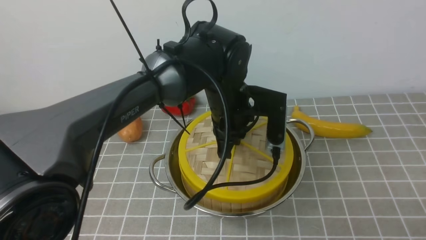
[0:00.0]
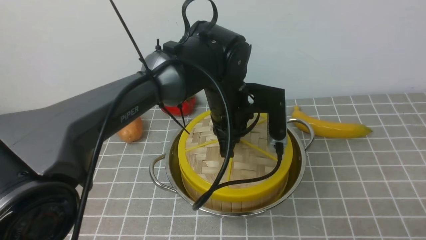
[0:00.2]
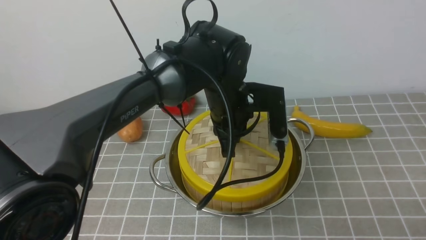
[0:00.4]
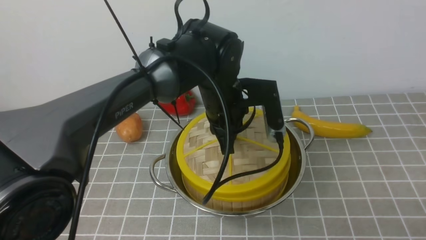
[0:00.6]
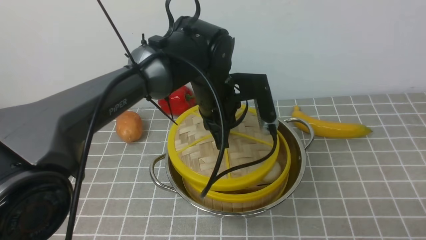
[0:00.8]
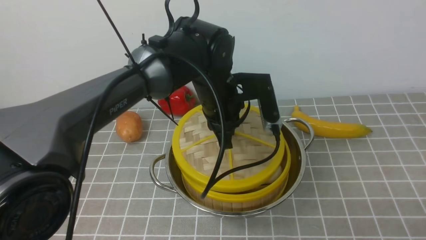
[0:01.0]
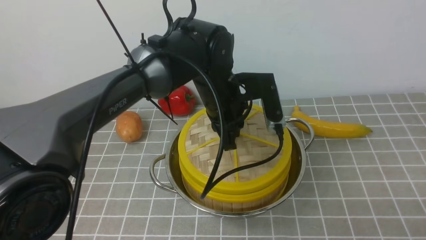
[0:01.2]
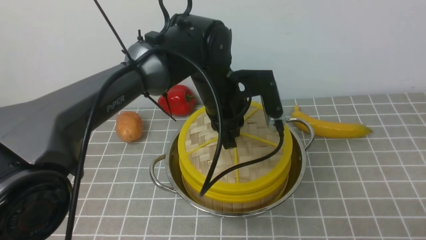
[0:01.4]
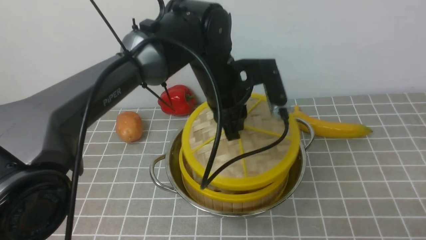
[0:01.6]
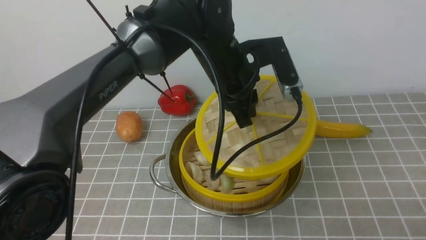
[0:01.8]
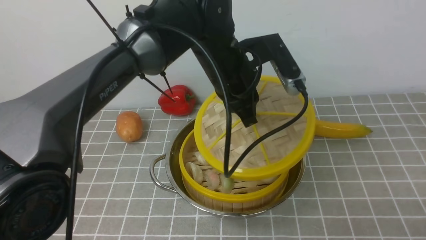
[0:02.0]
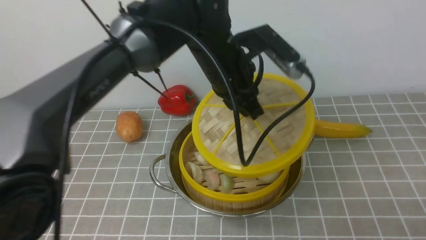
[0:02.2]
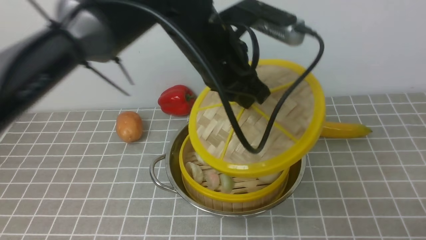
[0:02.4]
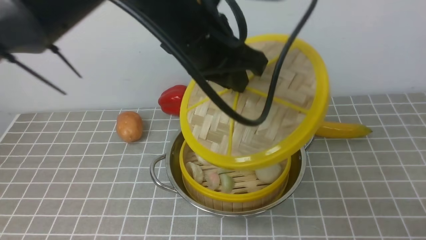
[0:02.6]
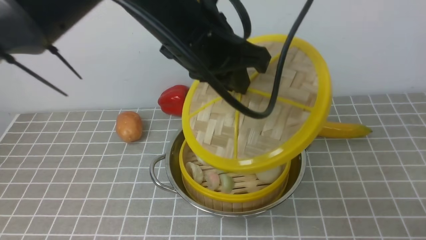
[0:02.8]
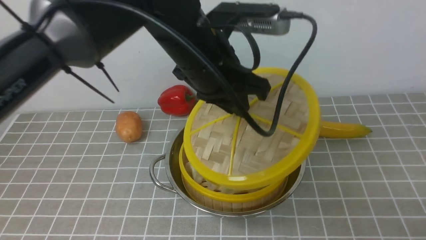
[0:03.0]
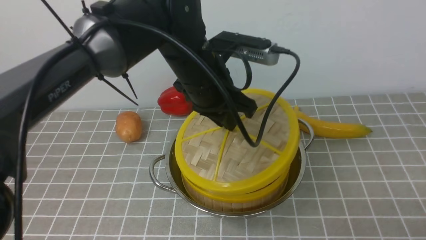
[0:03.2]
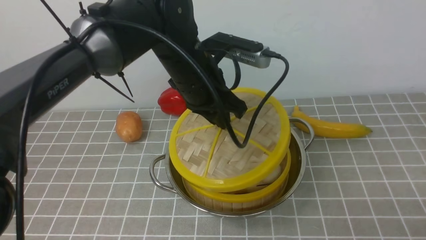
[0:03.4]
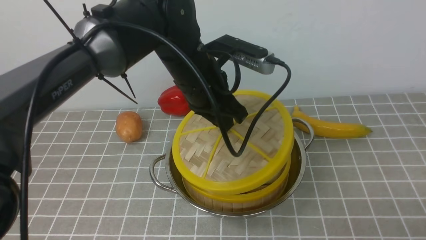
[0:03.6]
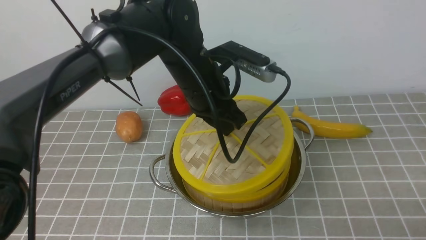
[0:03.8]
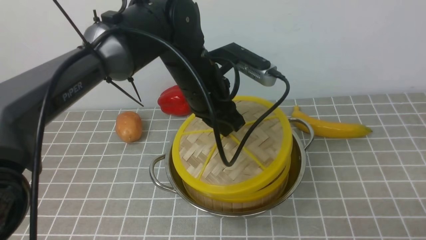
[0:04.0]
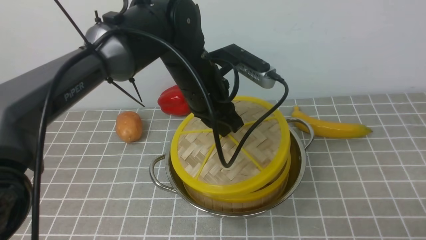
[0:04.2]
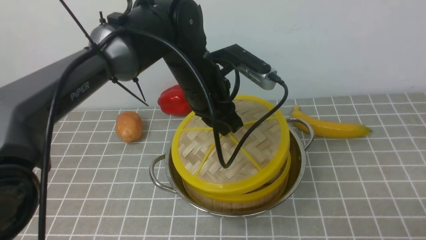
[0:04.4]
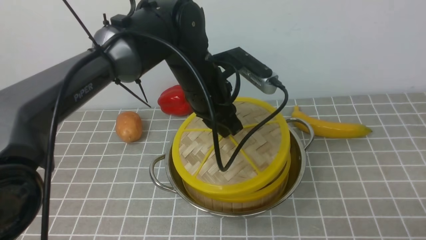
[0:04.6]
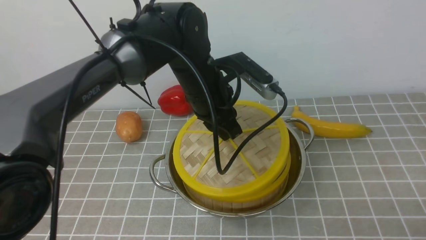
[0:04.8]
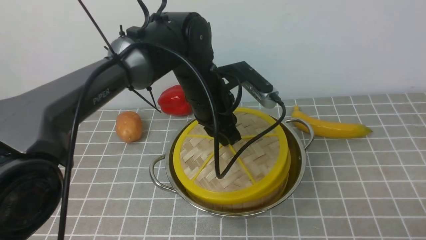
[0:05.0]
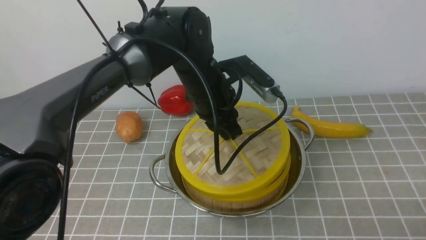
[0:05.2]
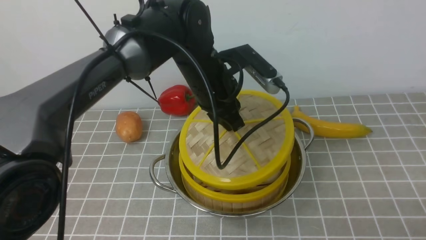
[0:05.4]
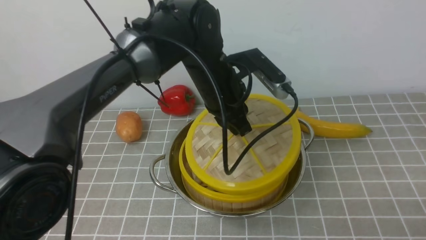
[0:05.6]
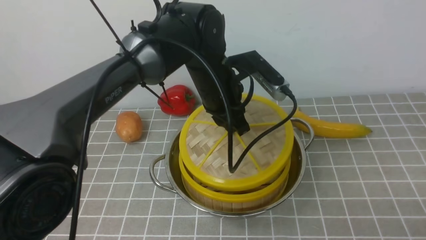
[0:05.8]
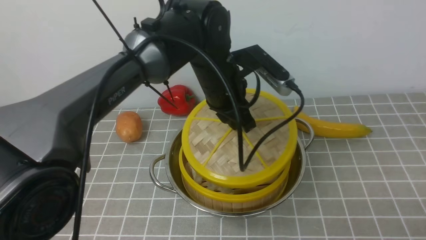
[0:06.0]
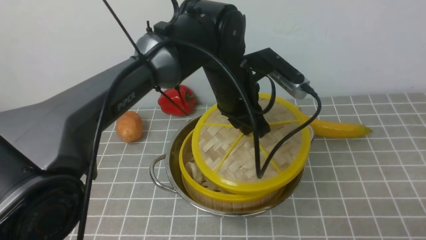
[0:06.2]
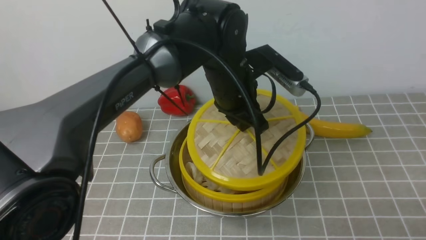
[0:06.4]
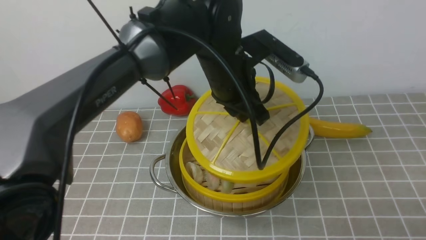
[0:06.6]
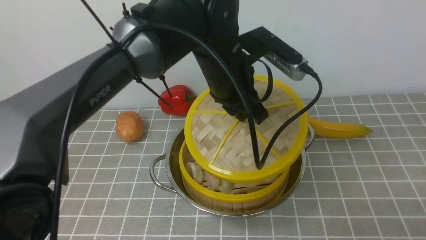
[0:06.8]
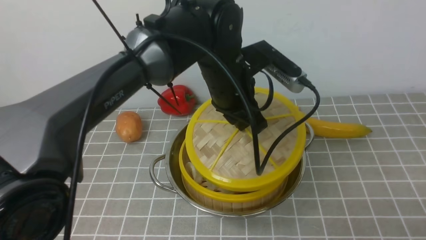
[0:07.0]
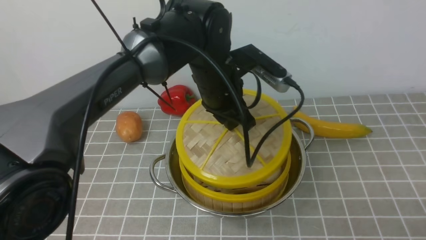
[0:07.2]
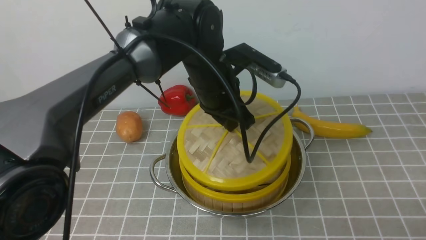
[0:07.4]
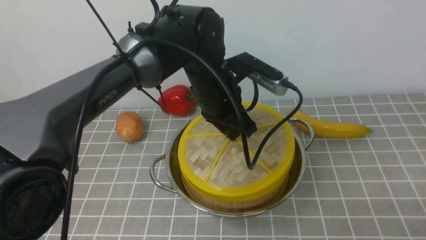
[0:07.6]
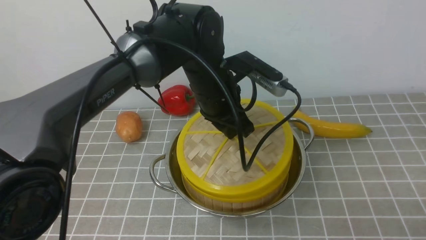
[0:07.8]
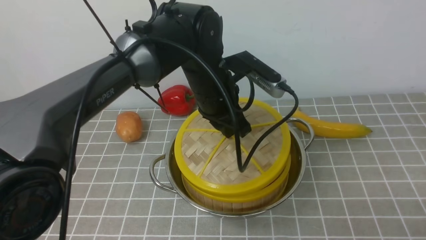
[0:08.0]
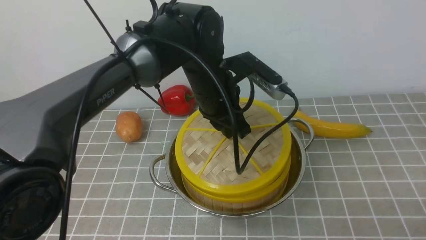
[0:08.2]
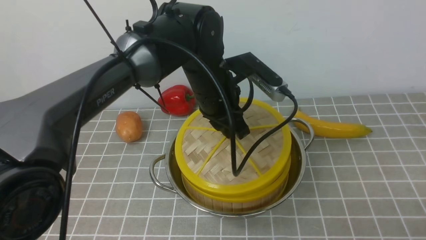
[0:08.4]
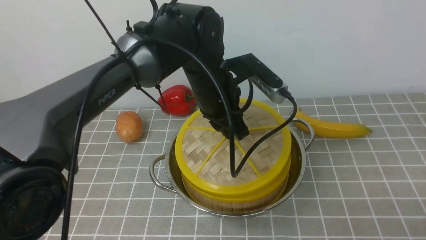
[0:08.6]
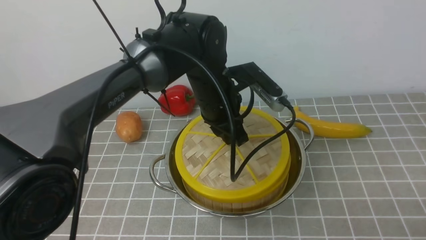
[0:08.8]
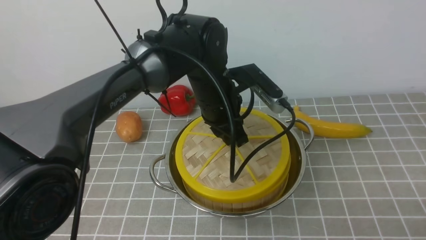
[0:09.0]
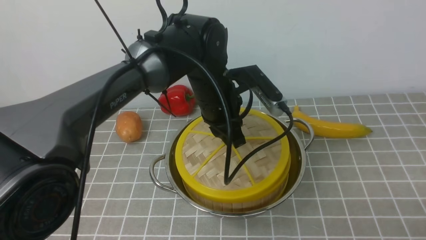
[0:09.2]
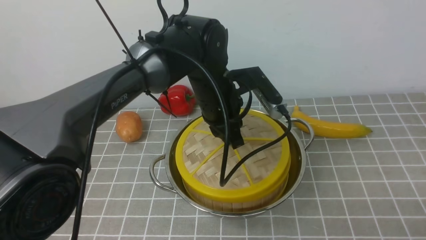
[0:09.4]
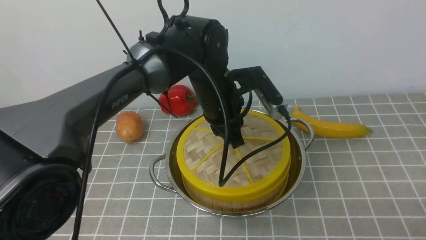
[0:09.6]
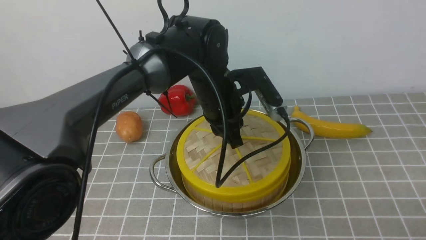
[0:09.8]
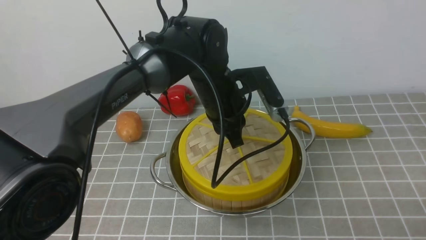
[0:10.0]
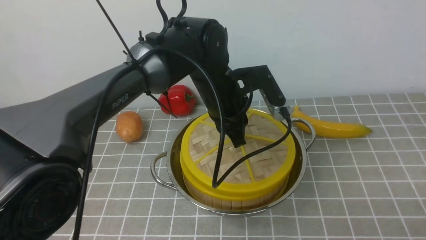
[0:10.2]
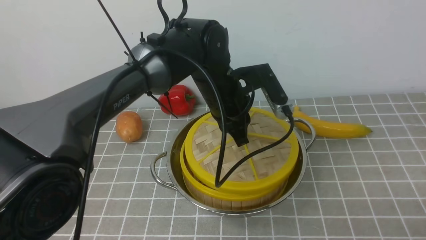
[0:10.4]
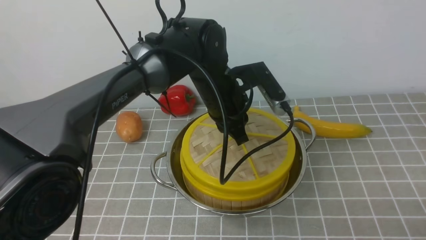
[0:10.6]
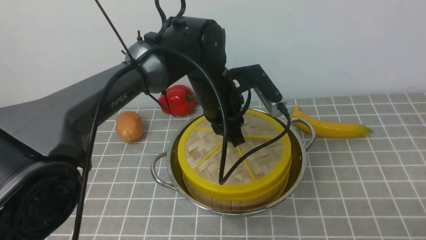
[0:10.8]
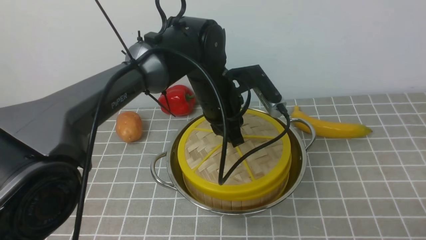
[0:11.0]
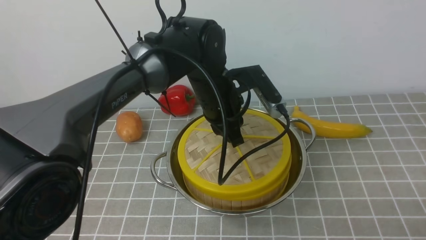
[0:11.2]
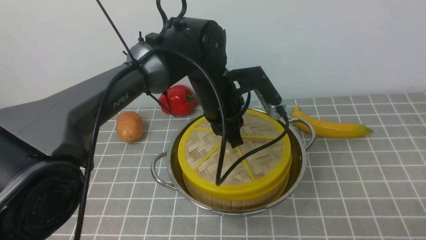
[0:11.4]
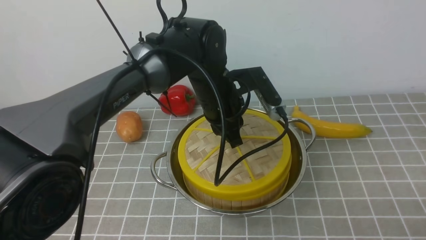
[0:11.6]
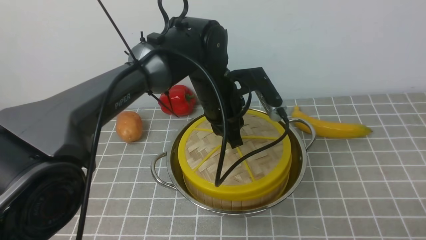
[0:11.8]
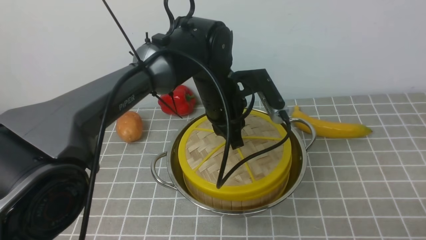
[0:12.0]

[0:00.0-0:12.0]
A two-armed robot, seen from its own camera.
Task of the whole recording: place the steamer in the pot on the grey tablecloth, and put the lid on the steamer.
0:01.6 to 0:03.0: The left gripper heads upward, covering about 5 cm.
0:03.0 to 0:04.4: The left gripper moves downward, about 5 cm.
0:06.0 to 0:12.0: The grippers move only a little.

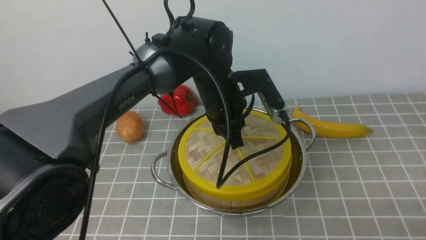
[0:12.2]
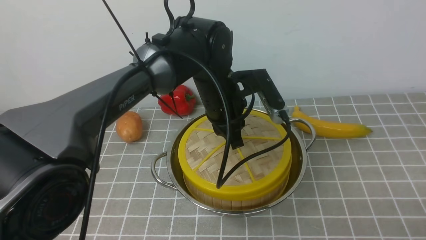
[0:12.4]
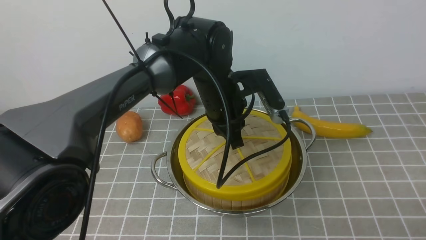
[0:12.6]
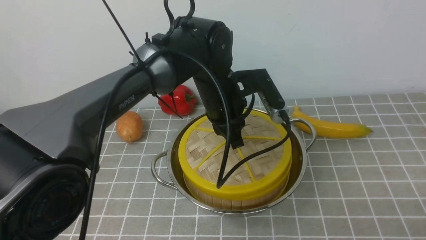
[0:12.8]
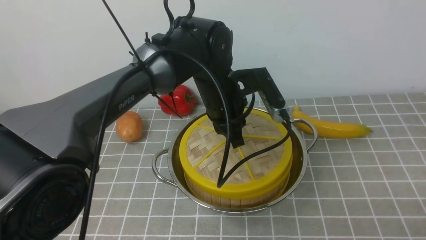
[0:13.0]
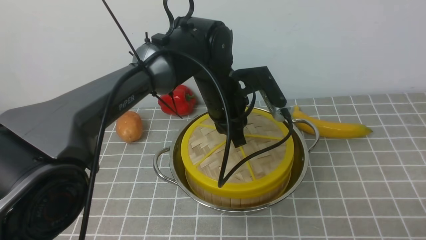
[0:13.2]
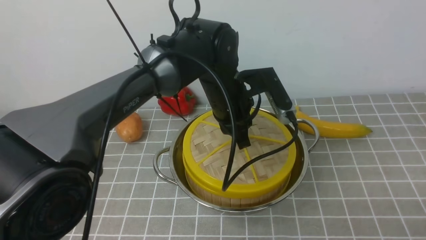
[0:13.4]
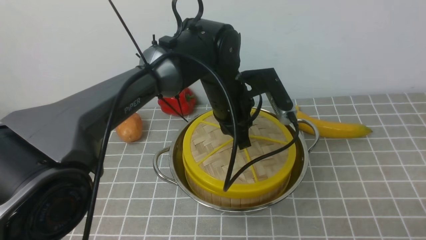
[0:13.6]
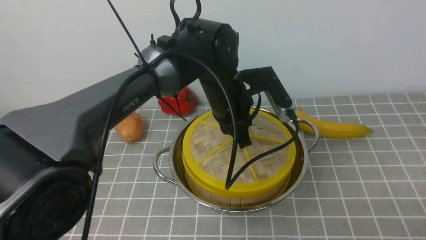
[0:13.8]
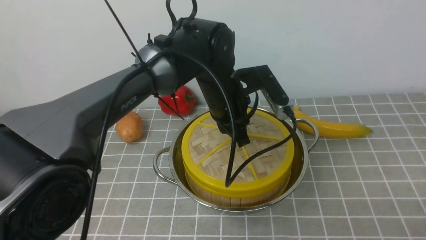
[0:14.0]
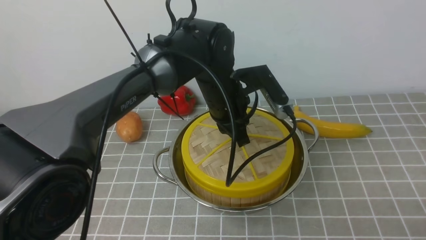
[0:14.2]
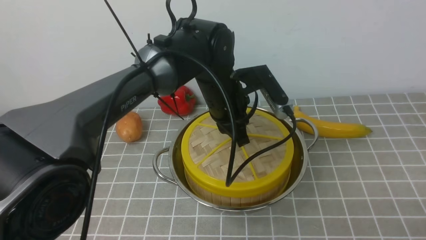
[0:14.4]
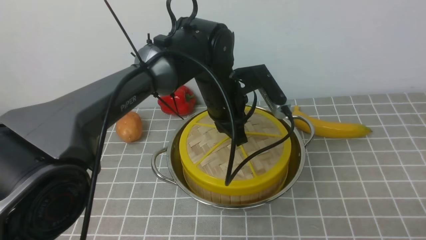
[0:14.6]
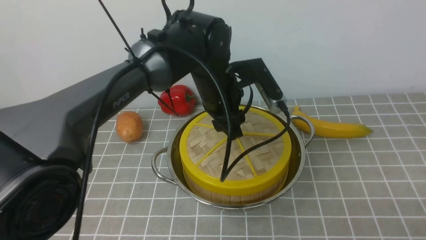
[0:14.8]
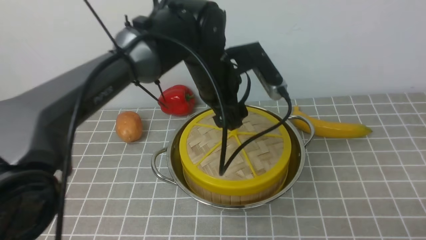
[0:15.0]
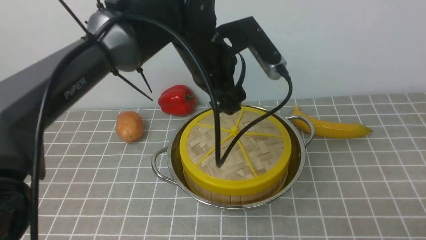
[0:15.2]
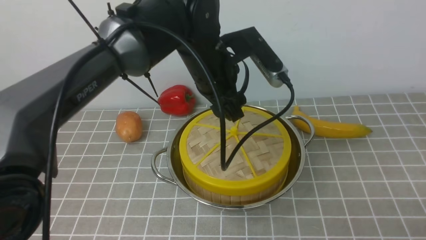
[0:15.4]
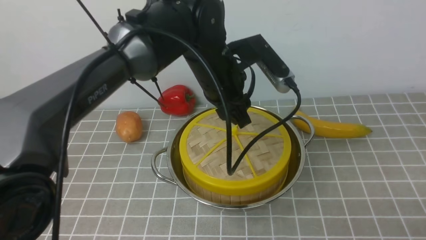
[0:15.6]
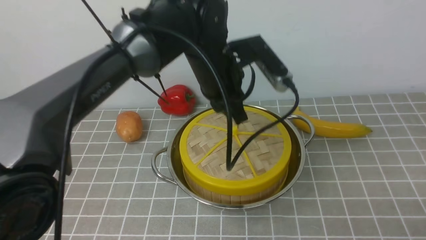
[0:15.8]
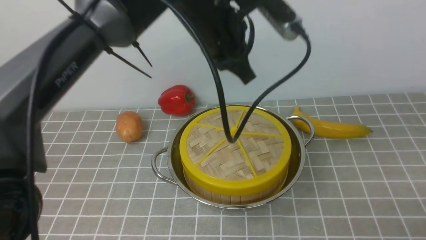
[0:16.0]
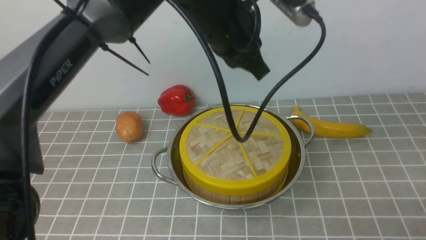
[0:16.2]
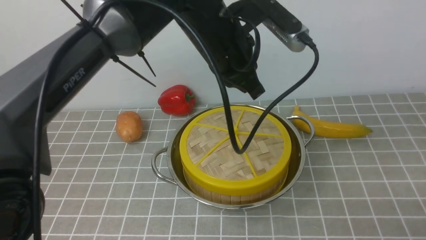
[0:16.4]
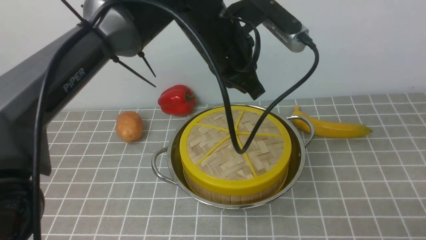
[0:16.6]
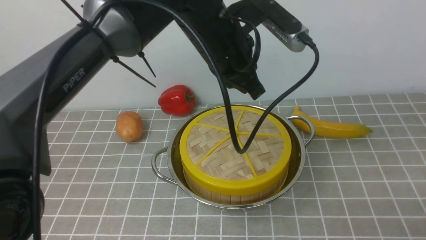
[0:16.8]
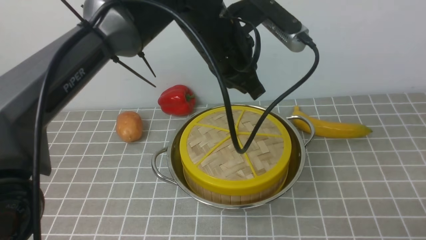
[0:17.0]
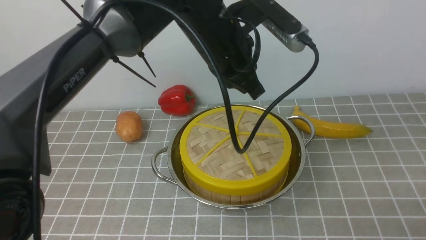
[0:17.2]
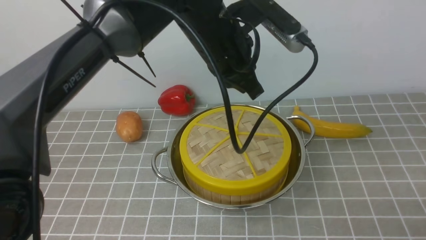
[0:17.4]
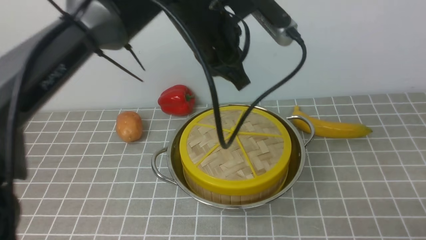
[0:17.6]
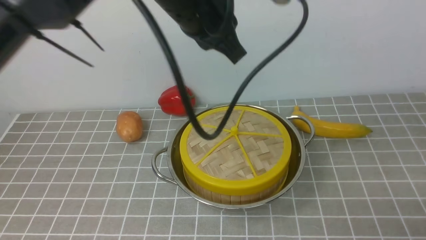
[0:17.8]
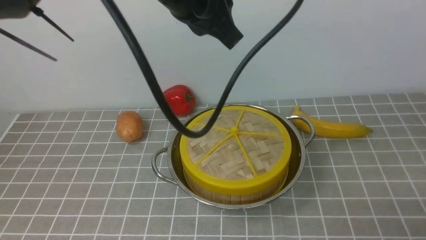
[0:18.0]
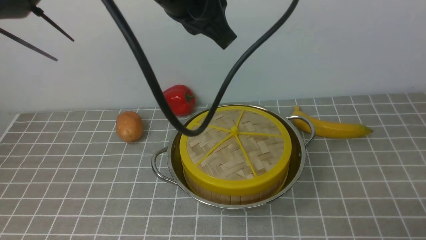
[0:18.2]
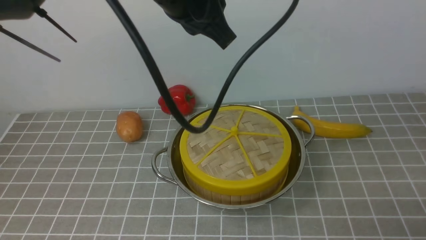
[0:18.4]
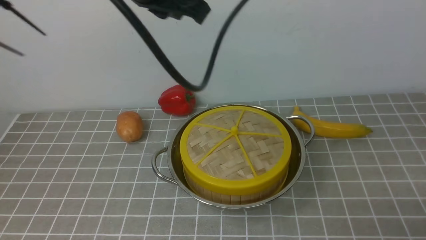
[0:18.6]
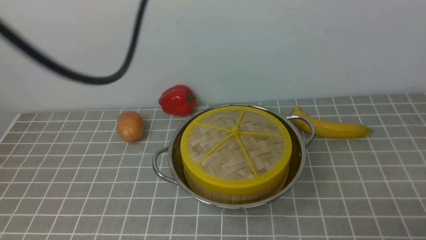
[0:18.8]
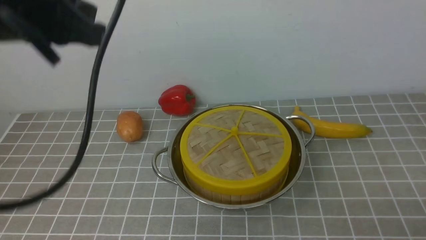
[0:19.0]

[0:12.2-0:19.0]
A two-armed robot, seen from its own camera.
Task of the whole recording: place the steamer in the pot on the grey tablecloth, and put the lid on the steamer.
Step, 0:12.2 to 0:15.0: use the left arm to place the steamer lid on the steamer.
0:12.2 to 0:13.6: The two grippers keep their place.
0:13.6 to 0:15.0: The left gripper moves approximately 5 cm, and opens up.
0:15.0 to 0:16.2: The left gripper is displaced upward by roughly 5 cm, and closes.
0:16.2 to 0:17.6: The grippers make only small movements.
0:17.6 to 0:19.0: The left gripper heads to the left and backward, covering about 20 cm.
